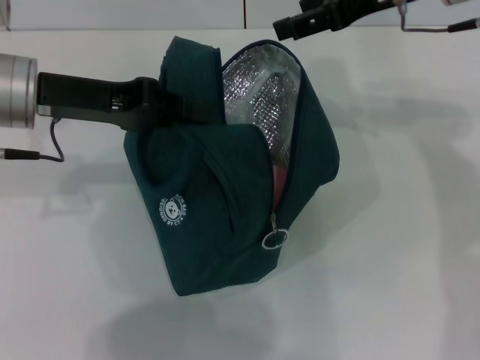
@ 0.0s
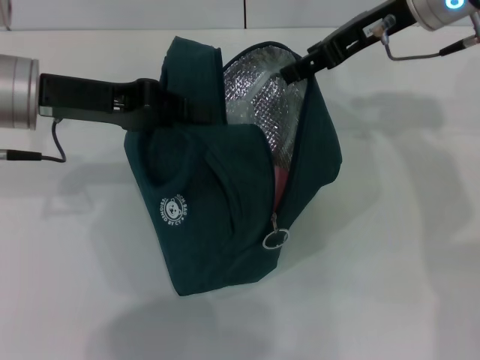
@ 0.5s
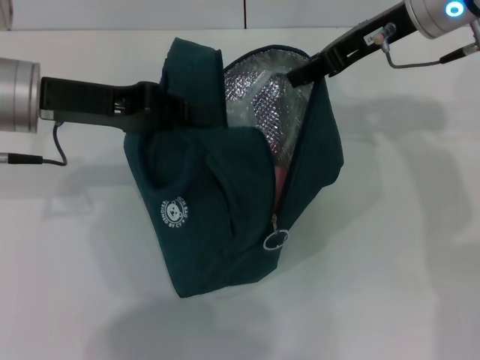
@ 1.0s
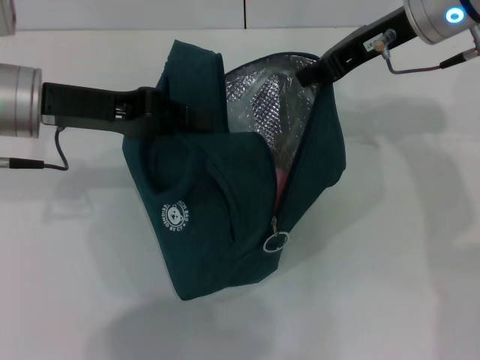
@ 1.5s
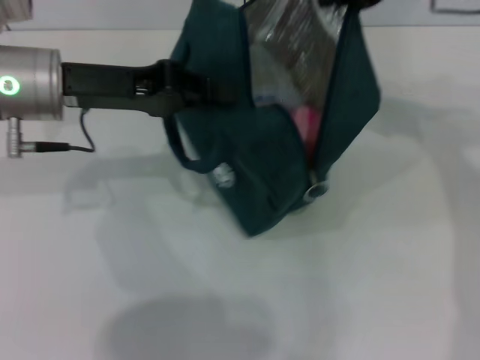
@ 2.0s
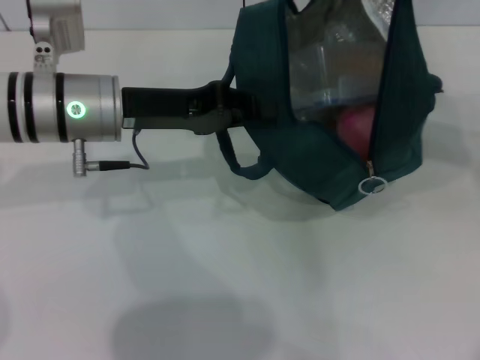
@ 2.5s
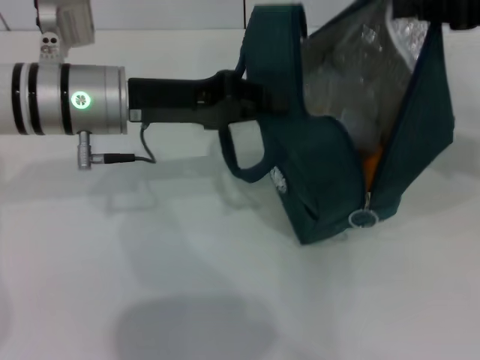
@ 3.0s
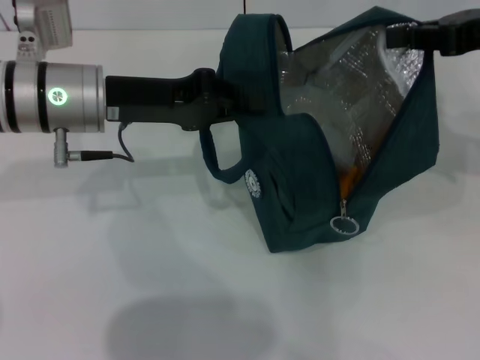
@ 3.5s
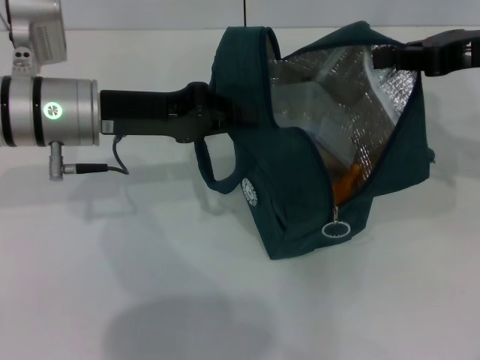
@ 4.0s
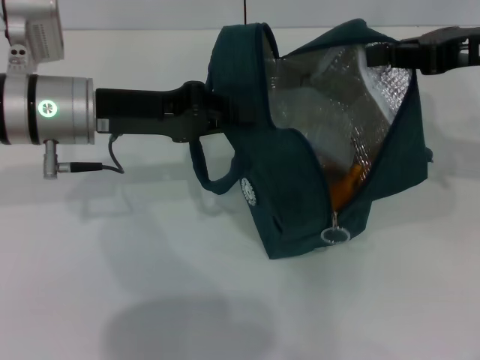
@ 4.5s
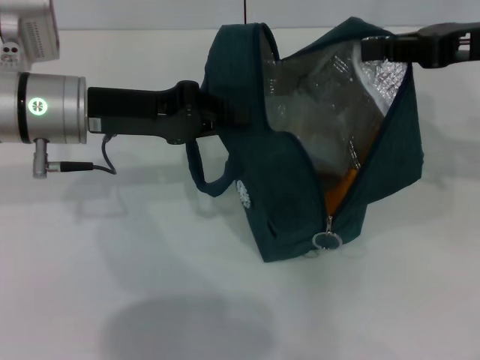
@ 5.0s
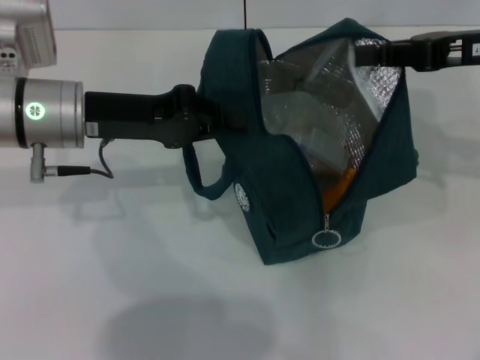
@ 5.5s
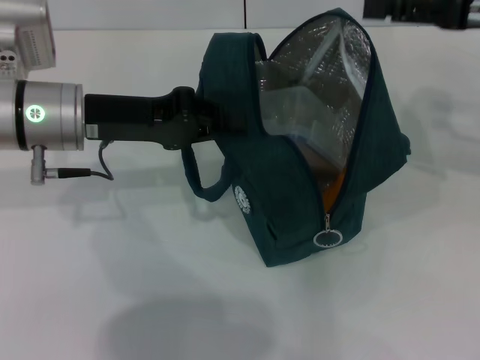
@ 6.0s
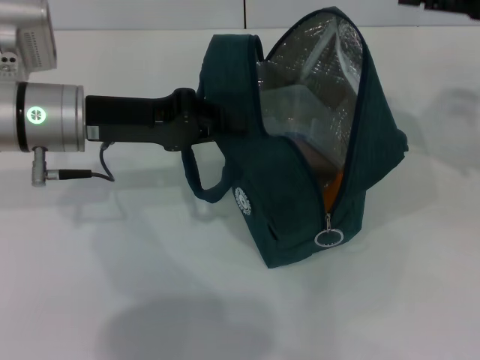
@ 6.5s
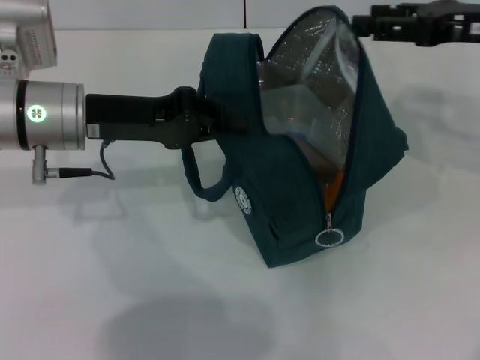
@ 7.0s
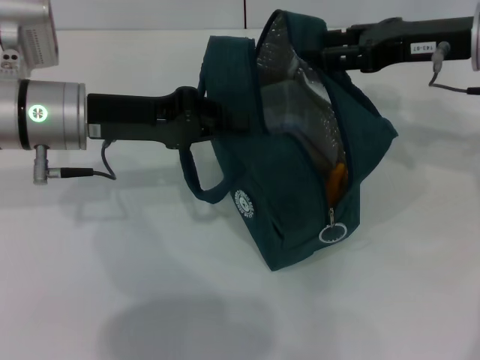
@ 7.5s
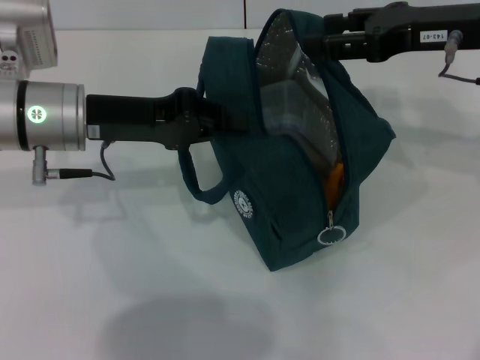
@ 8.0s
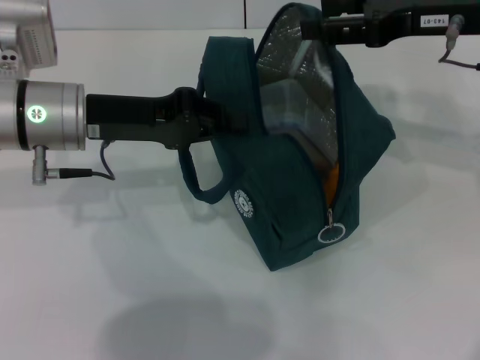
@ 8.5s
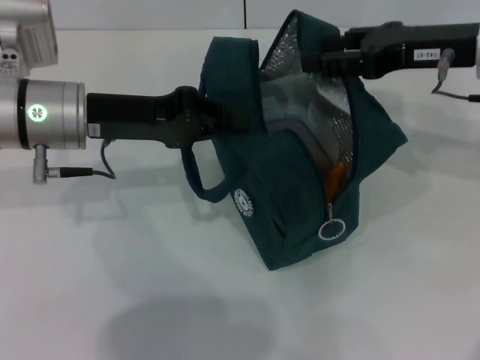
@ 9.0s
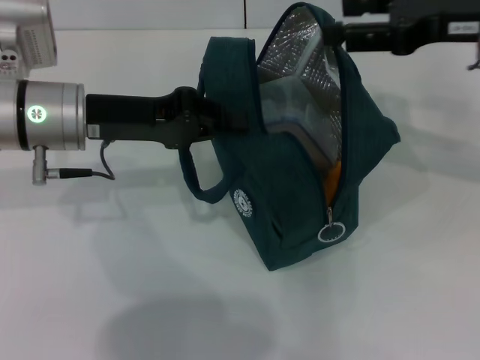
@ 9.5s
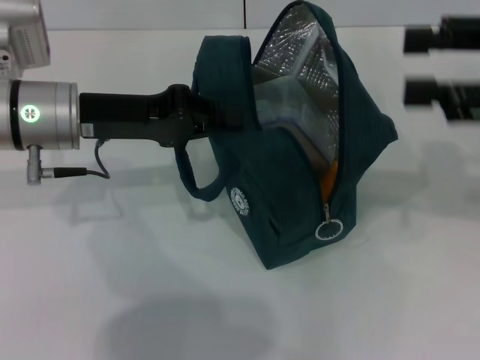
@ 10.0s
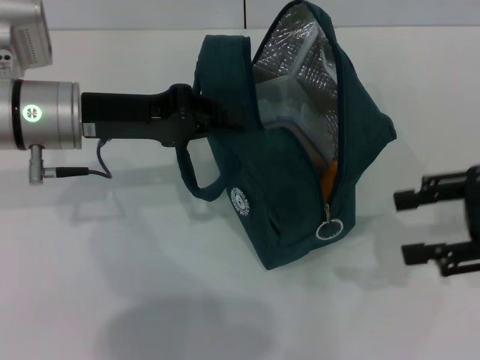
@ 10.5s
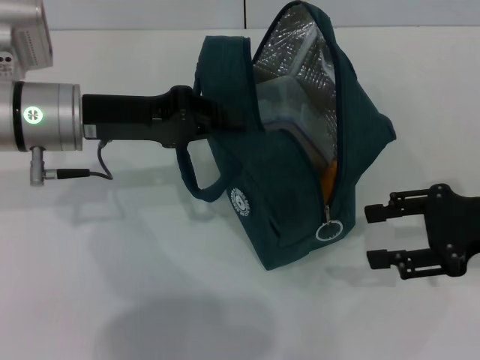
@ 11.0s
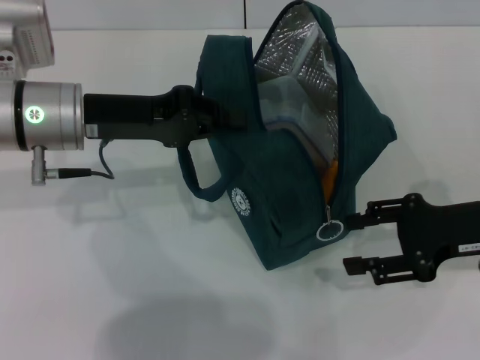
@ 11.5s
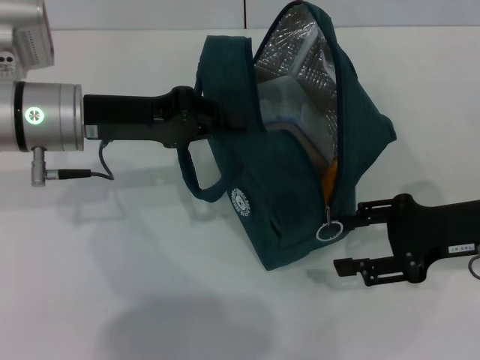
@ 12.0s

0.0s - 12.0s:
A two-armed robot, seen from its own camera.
Step, 0.0s - 9.5s: Hold the lunch bag with your right hand.
0.0s - 2.0s: The right gripper closes.
2.0s - 4.0s: The right gripper heads to the right and downward, covering some 10 cm.
4.0s - 6.0s: The right gripper opens its fingers.
6.0s - 8.0s: The right gripper is displaced to the left by approximately 5 cm.
8.0s - 10.0s: The right gripper goes approximately 10 cm backward and to the right.
10.0s - 12.0s: The right gripper shifts some 15 cm downward.

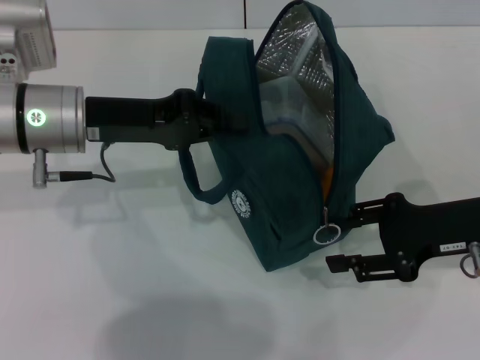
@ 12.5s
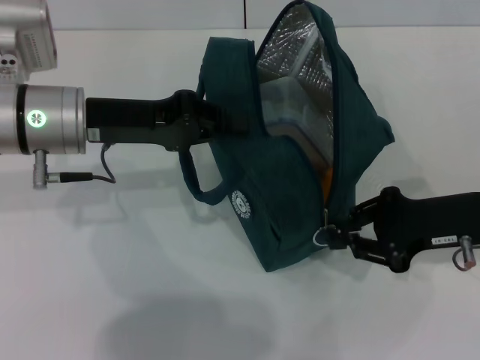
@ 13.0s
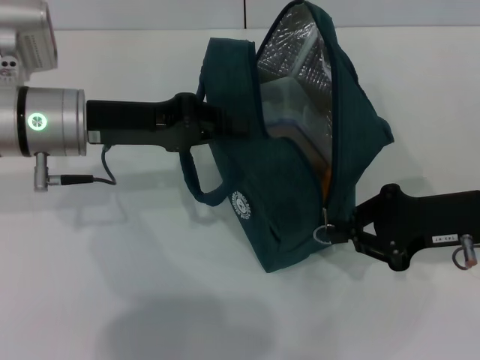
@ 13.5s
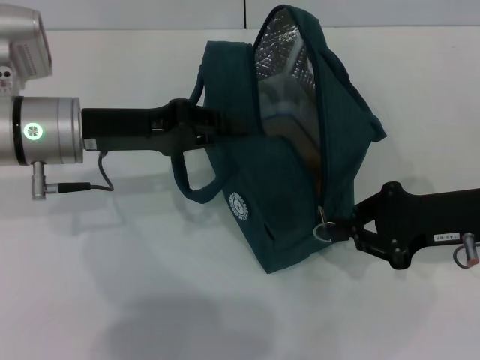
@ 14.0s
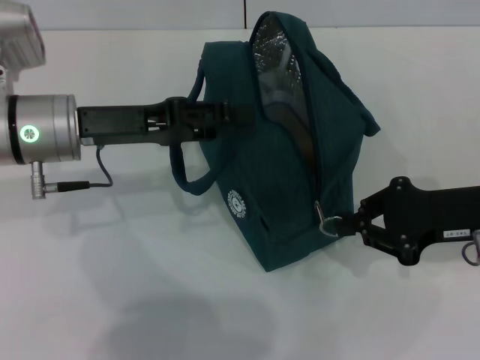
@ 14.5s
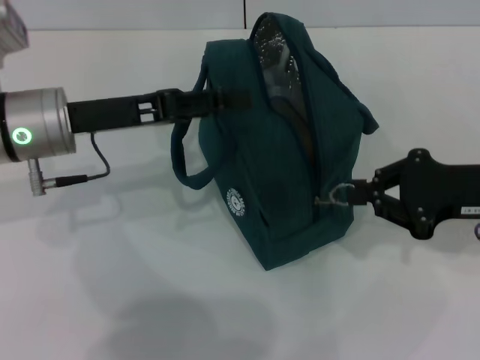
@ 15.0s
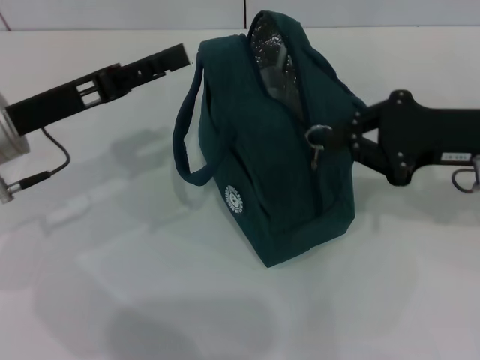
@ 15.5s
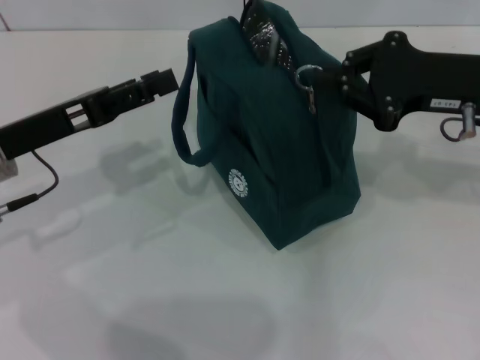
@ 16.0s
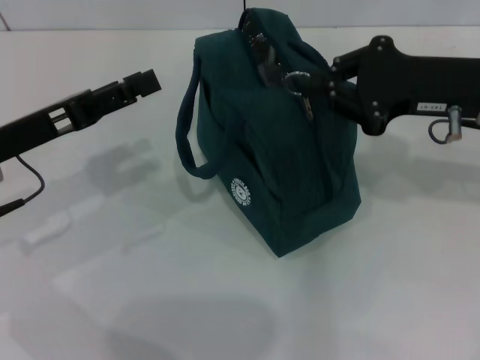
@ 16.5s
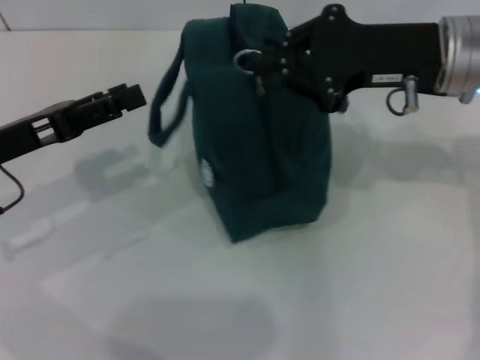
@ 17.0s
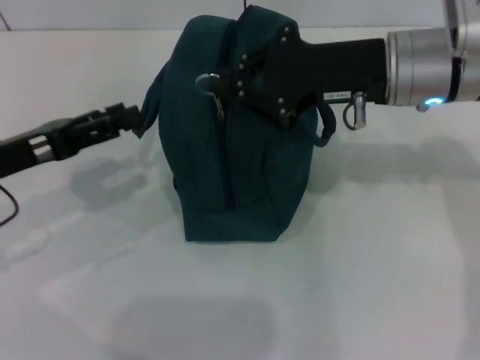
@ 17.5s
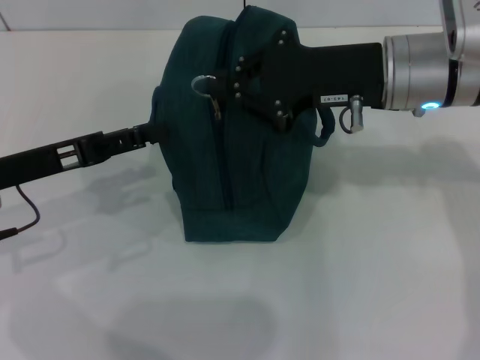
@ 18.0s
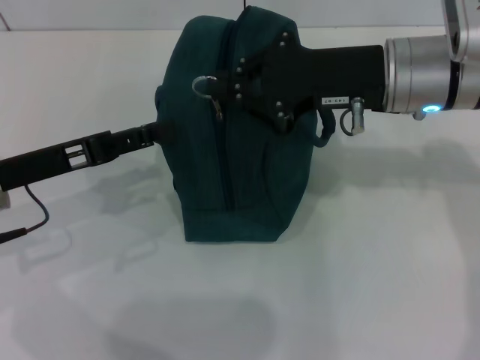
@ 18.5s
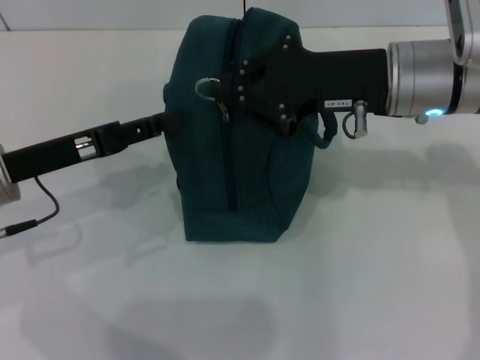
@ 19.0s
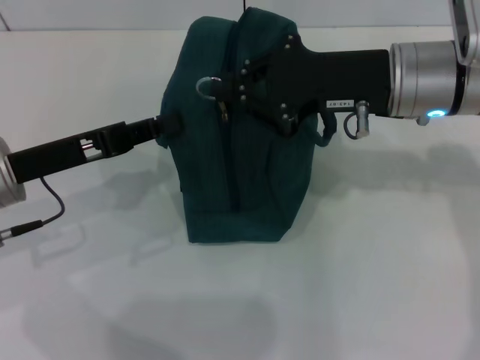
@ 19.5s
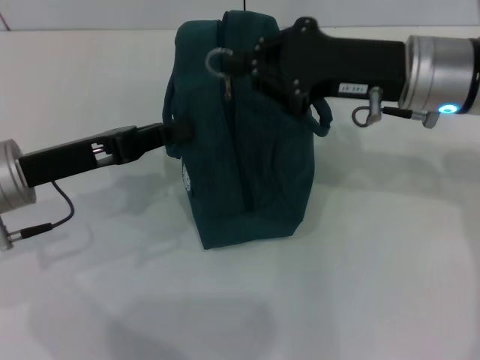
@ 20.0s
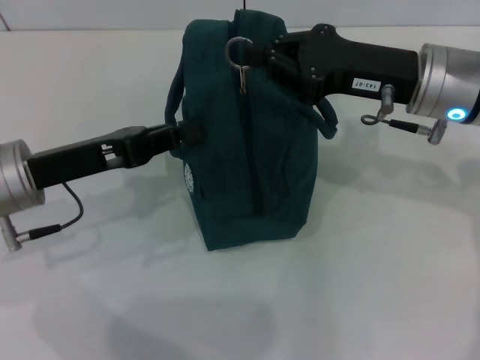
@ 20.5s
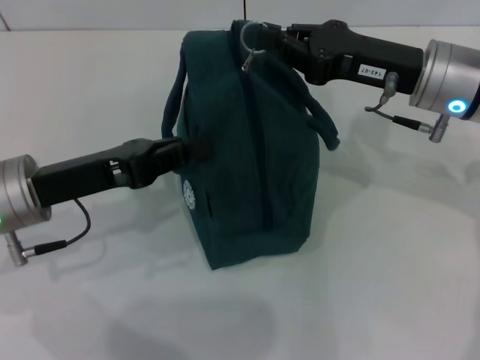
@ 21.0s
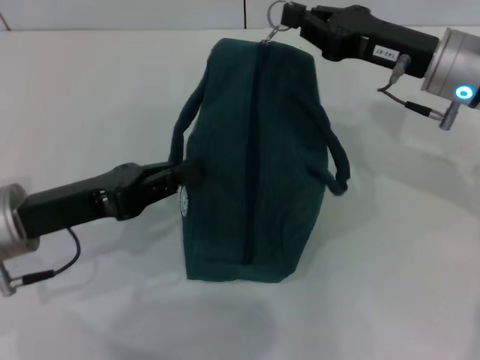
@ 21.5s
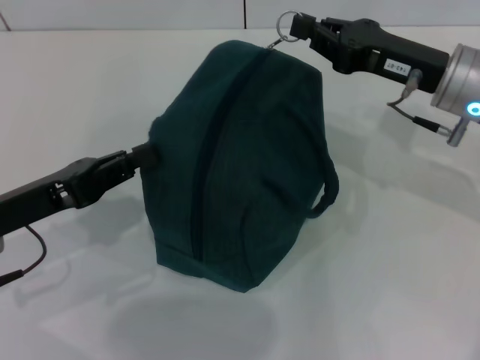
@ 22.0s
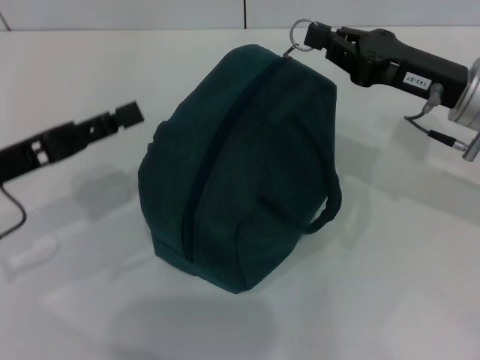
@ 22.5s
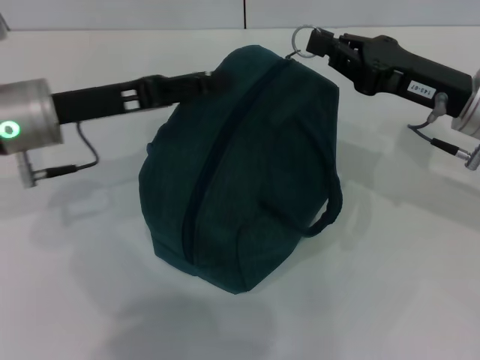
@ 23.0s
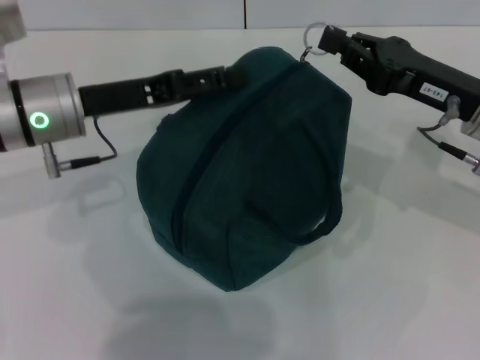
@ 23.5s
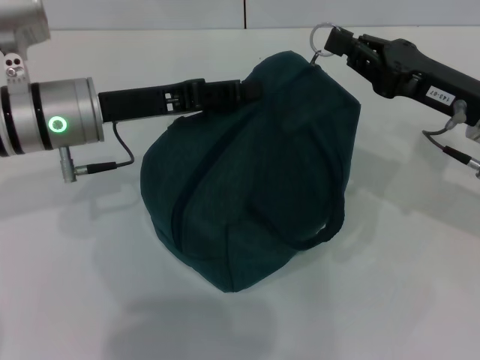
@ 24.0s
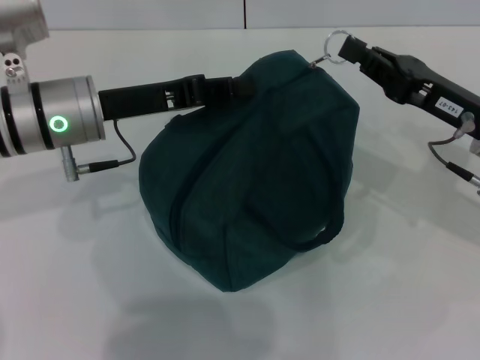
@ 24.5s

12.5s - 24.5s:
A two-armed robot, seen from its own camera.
Step, 12.5s - 15.0s: Hold the lunch bag with your left hand.
12.5s - 14.5s: The left gripper opens up. Meanwhile the right gripper closes.
14.5s - 16.5s: The left gripper goes about 5 cm to the left, and opens its fingers, while the right gripper heads upward and forward, covering some 10 cm.
16.5s - 18.5s: The right gripper shifts roughly 10 cm to the left.
18.5s - 20.5s: The left gripper closes its fingers.
20.5s - 22.5s: The right gripper shifts by approximately 5 cm. The left gripper ends up some 5 cm from where it was, and opens up.
22.5s - 24.5s: The left gripper is displaced to the right and forward by about 15 cm, and opens and closes again.

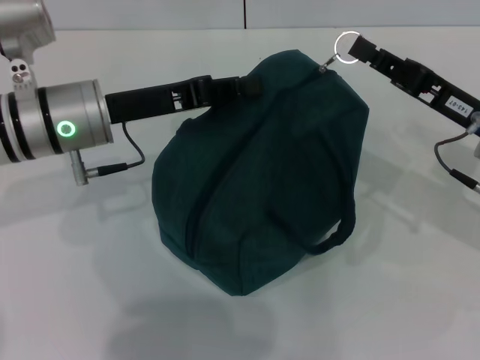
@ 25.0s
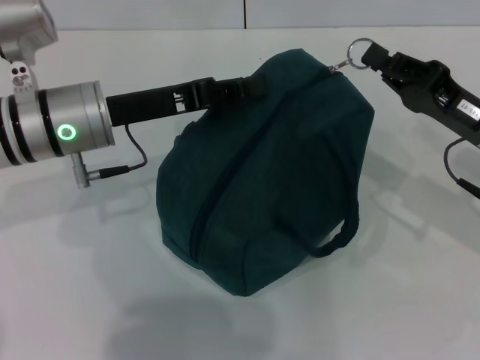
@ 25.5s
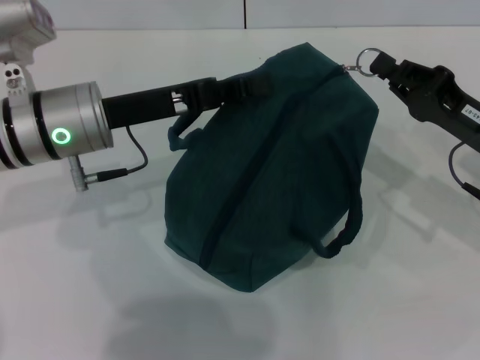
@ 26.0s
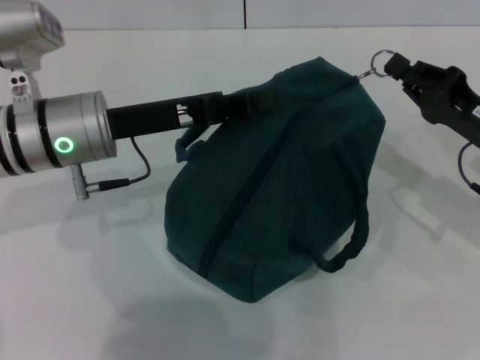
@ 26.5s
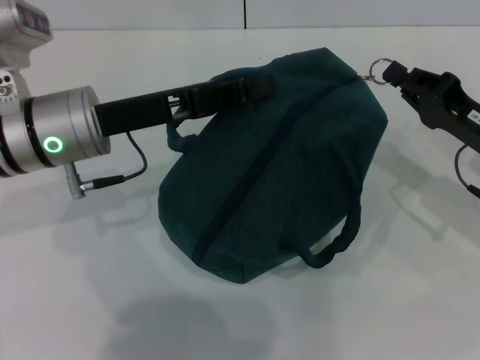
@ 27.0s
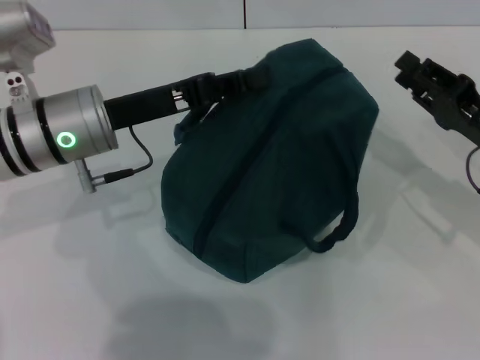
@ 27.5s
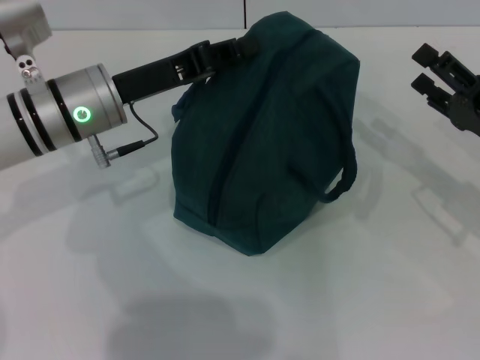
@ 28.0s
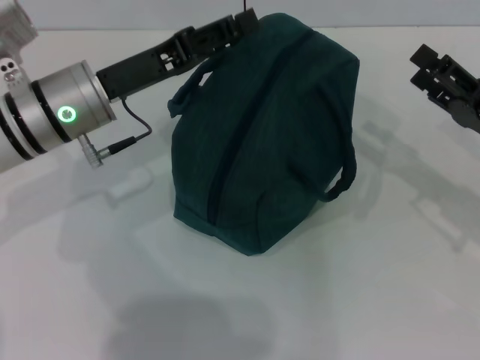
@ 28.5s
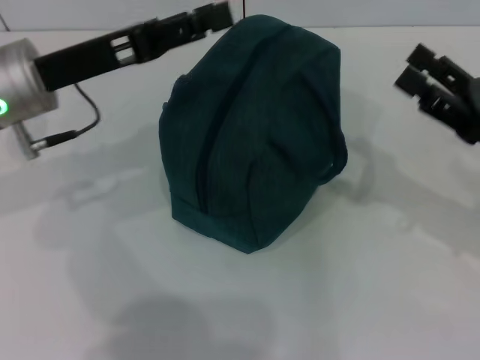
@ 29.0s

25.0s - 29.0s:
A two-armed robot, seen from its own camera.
Step, 25.0s - 27.0s: Zip up the lunch bag with your right hand.
Step, 27.5s - 28.5s: Hold the lunch bag with your left hand.
27.0s - 29.0s: The left gripper opens up. The right gripper opens up.
